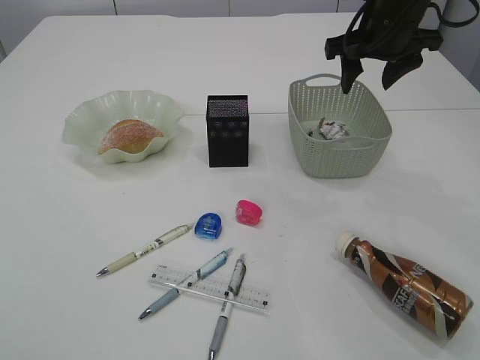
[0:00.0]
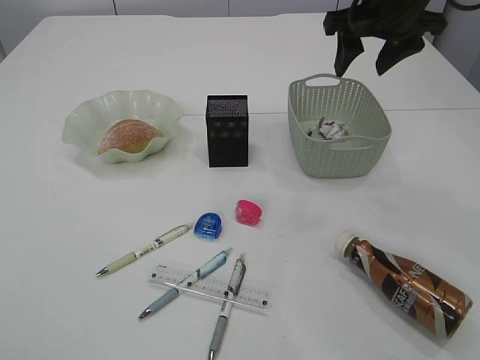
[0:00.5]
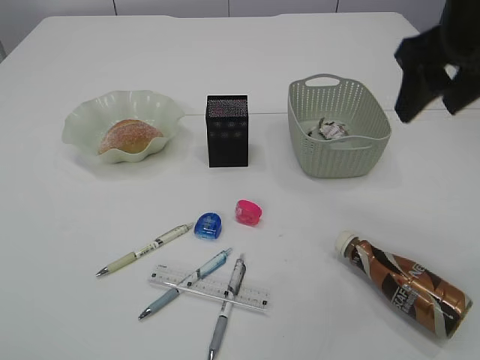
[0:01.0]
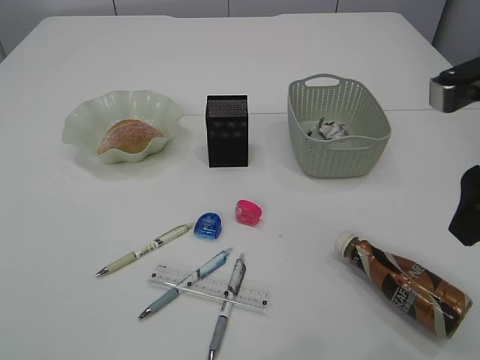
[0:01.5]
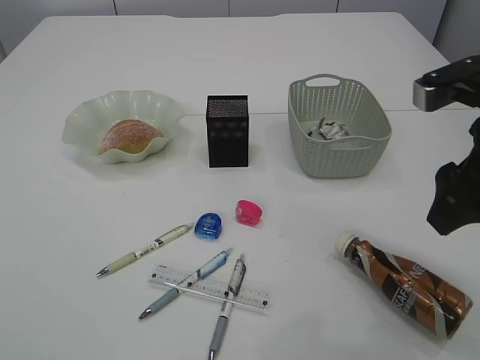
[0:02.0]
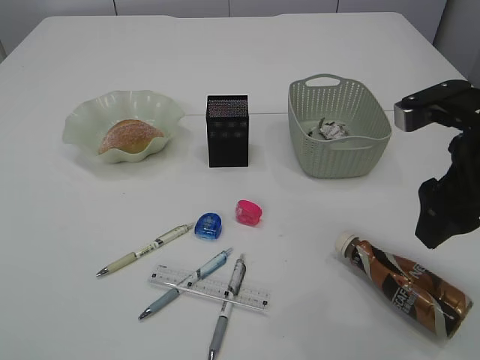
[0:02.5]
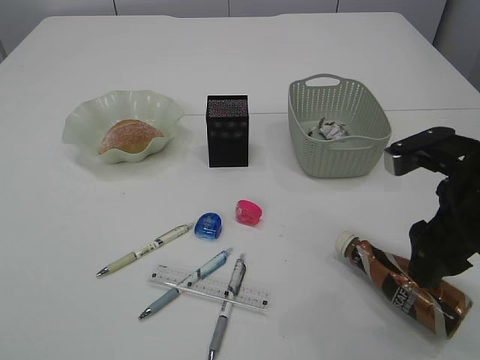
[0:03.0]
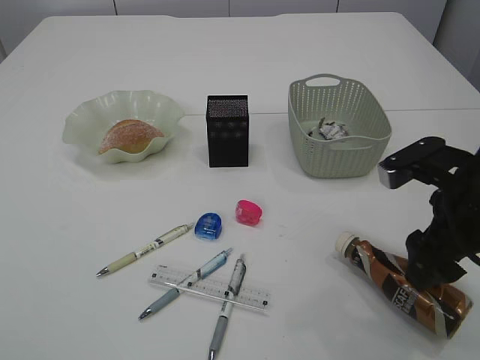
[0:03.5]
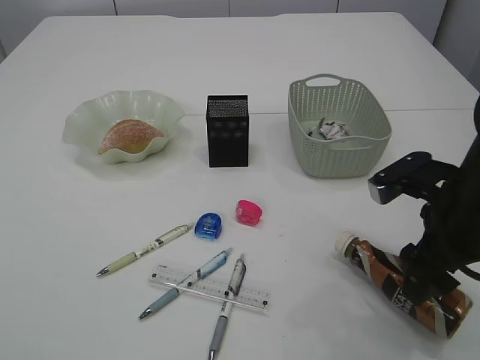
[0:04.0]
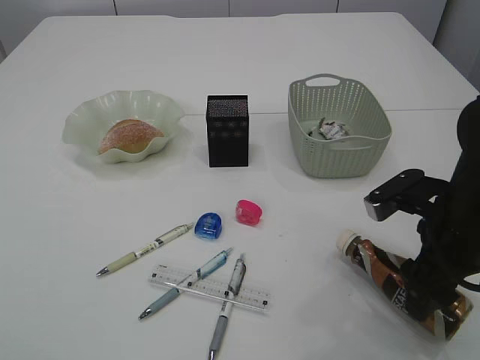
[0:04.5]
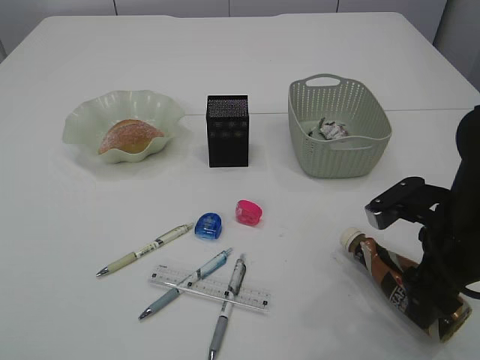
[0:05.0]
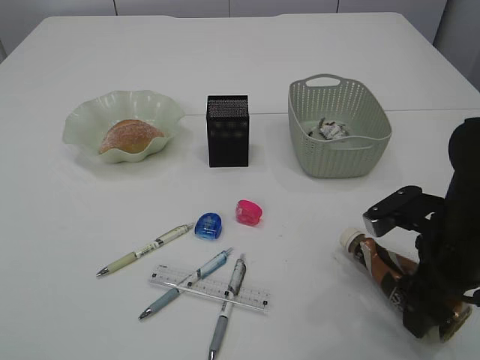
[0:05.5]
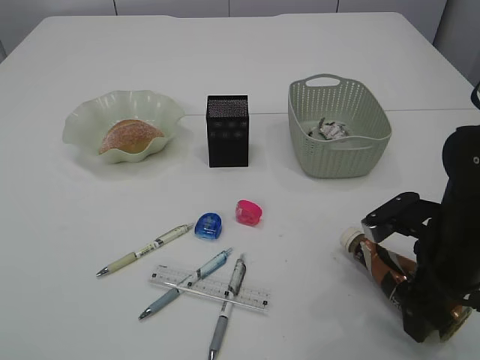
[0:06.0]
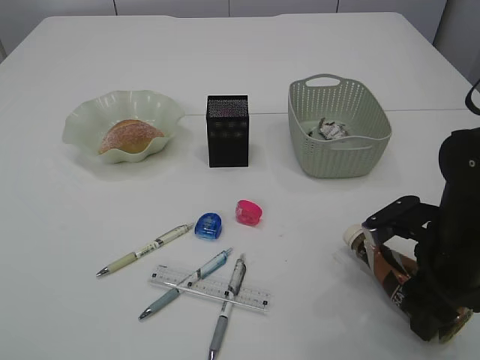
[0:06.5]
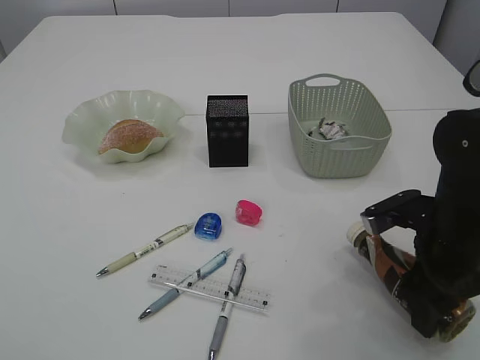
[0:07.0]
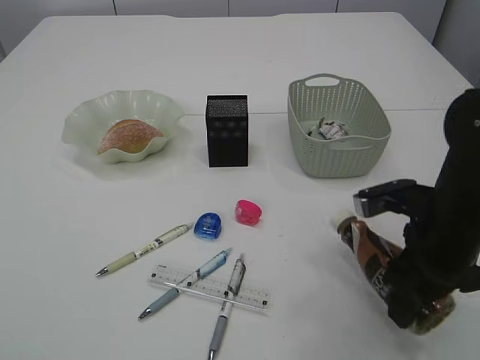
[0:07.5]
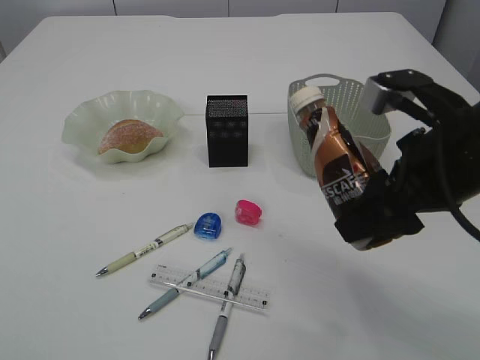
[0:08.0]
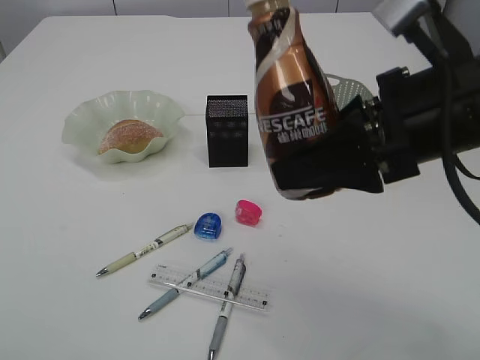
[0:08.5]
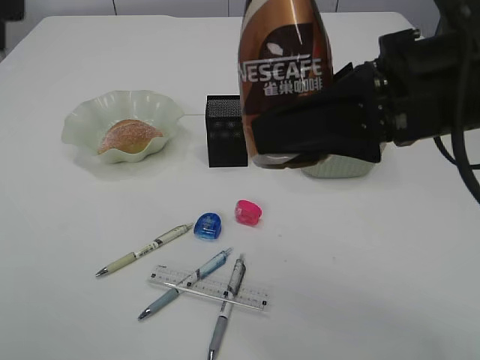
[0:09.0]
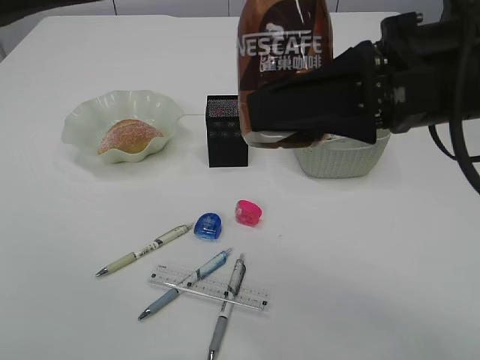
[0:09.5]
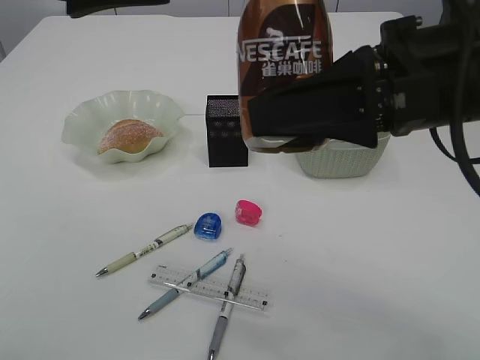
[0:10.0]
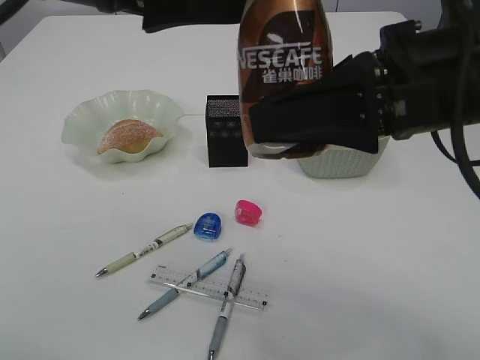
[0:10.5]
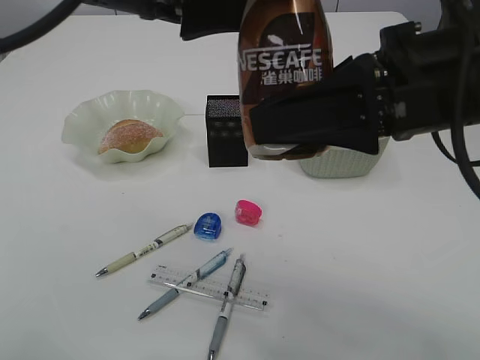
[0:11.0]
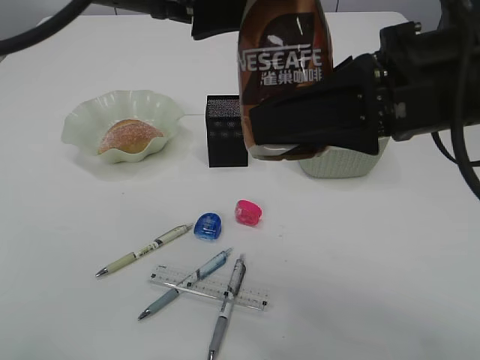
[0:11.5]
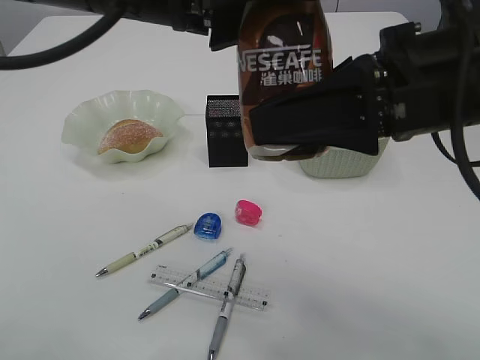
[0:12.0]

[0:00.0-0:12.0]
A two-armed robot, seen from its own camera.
Step, 0:00.0 to 0:07.5: Pick up the bottle with the right arm.
0:00.0 to 0:02.0: The right gripper shifts approximately 20 cm backward.
0:02.0 to 0:04.0: The right gripper moves downward, some 10 cm.
0:04.0 to 0:06.0: The grippers make only small movements.
0:06.0 to 0:08.0: The right gripper goes roughly 15 cm upward.
0:08.0 to 0:10.0: The right gripper travels upward by roughly 5 cm. The left gripper travels forward and to the right by about 20 cm.
0:10.0 to 0:12.0: The left gripper is displaced to the right by some 10 cm.

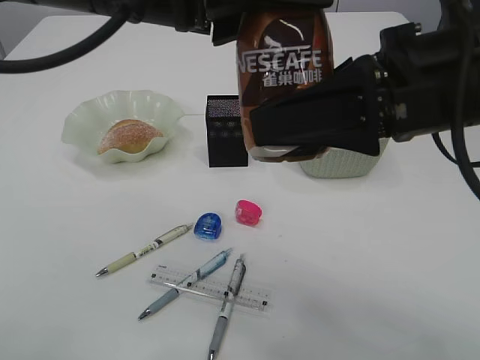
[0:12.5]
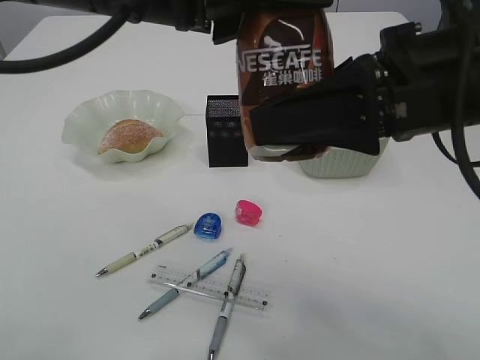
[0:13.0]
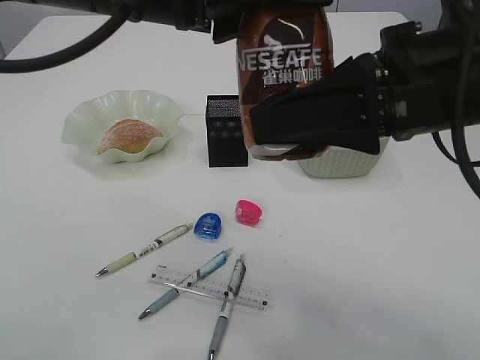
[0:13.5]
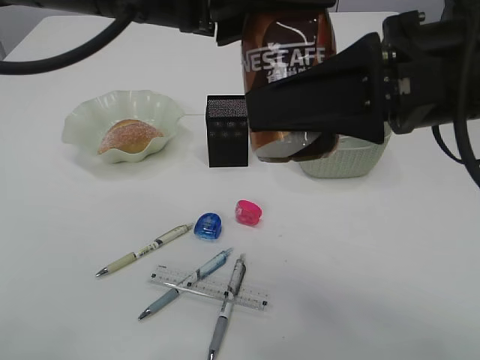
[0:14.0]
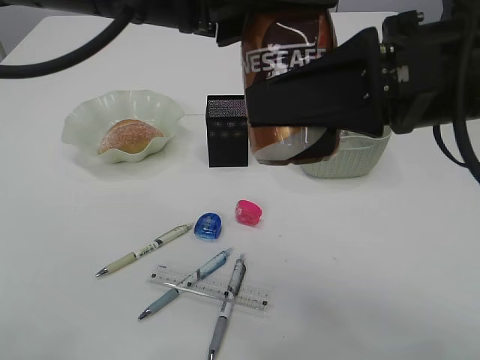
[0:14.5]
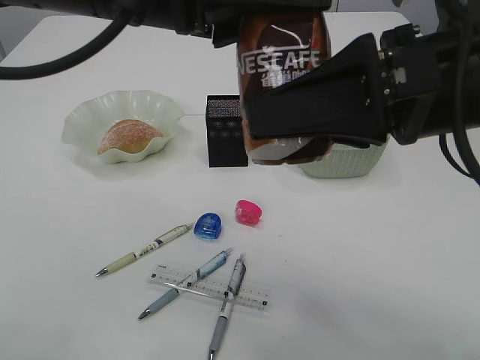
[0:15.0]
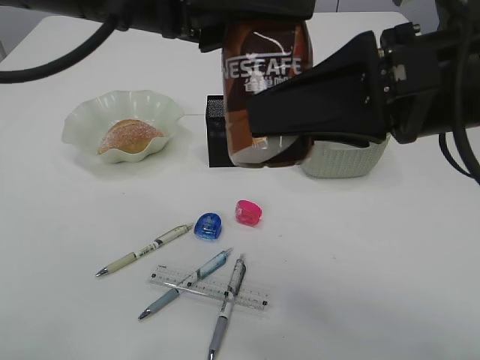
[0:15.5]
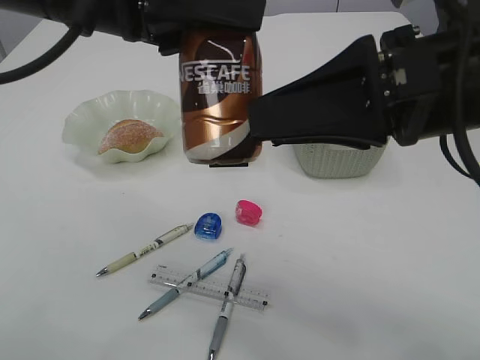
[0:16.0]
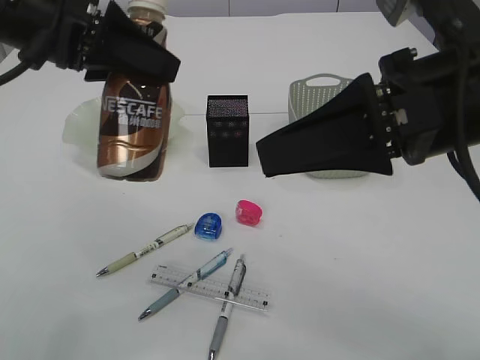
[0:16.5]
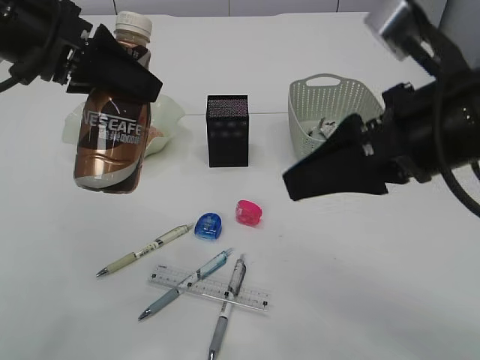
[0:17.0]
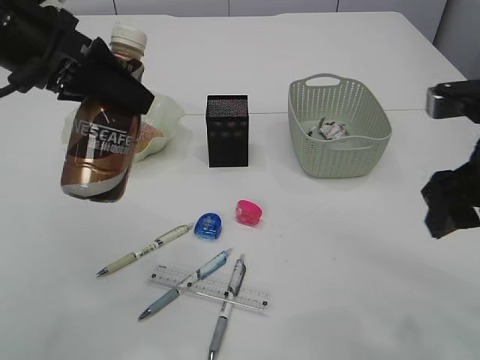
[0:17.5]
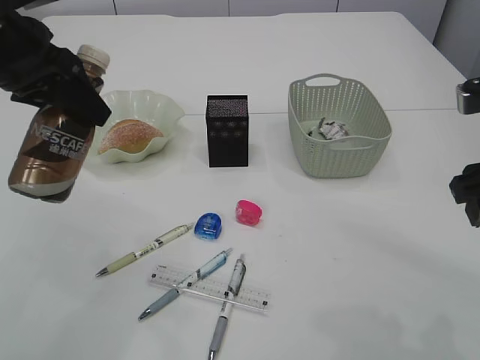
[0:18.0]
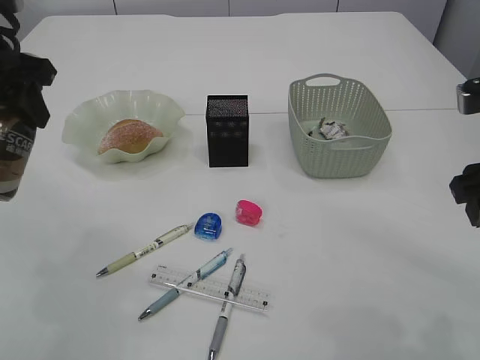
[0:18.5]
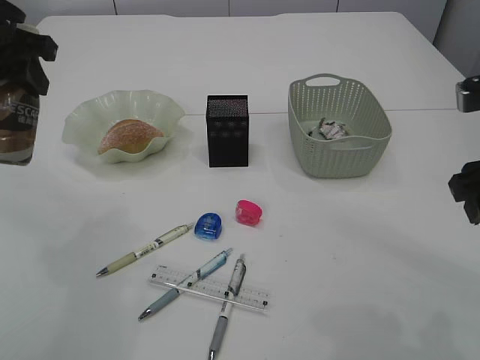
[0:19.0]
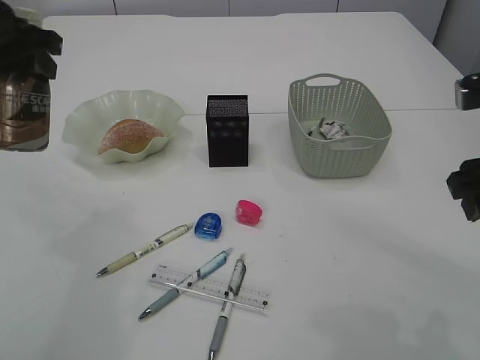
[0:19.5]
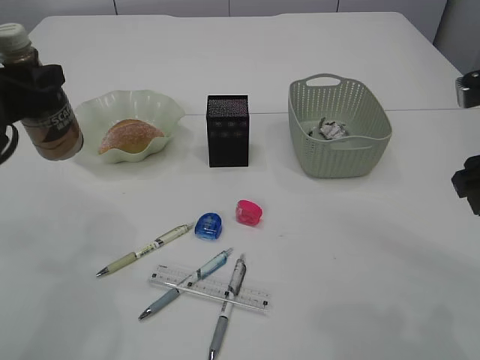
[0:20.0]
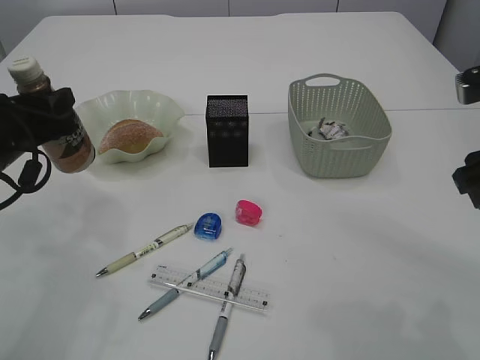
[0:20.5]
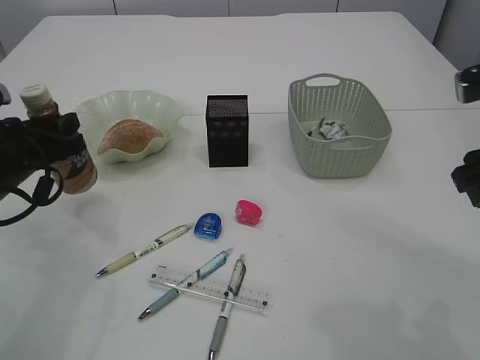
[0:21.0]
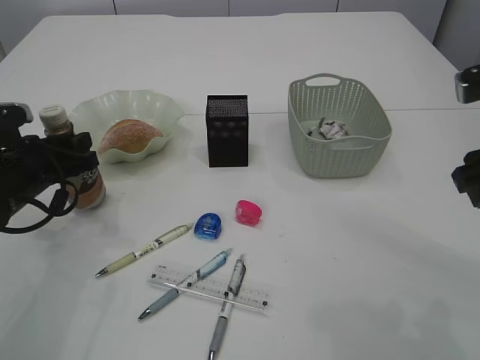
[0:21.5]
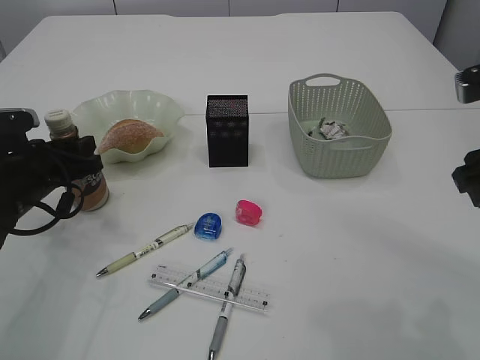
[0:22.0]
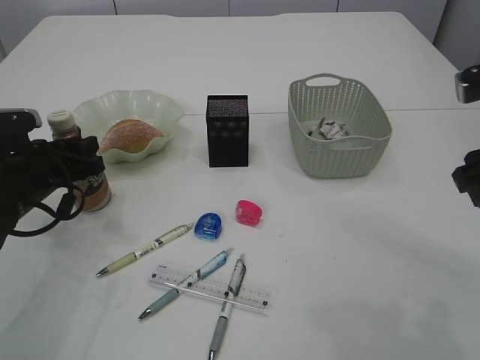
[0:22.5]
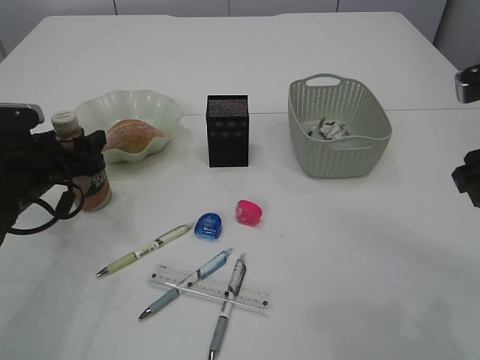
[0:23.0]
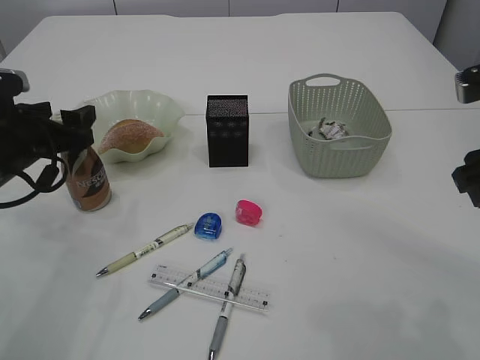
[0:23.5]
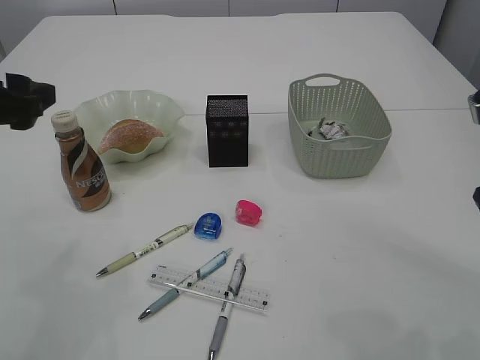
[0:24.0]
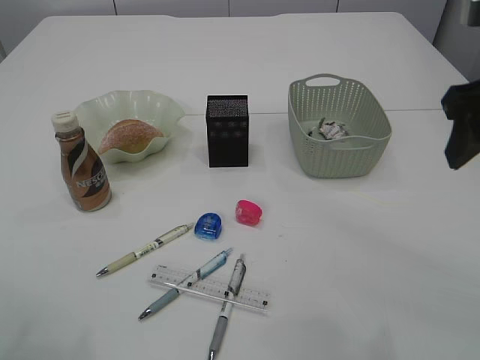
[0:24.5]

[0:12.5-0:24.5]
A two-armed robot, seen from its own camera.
Step, 0:12.5 to 0:16.0: transfer the bottle to the left arm.
Step, 0:16.5 to 0:23.5: Place the bottle.
0:12.5 to 0:14.5: The grippers move only a little.
0:14.5 to 0:16.5: The left gripper goes approximately 10 cm to the left and forward.
0:16.5 to 0:18.5: The left gripper moves to the left, some 10 cm. Meanwhile the right gripper heads to the right and downward, covering about 10 cm.
0:18.5 to 0:20.5: The left gripper moves downward, approximately 10 cm.
0:20.5 to 0:22.5: The left gripper heads downward, covering some 10 cm.
0:22.5 to 0:24.5: The right gripper travels upward by about 5 cm. Meanwhile the left gripper heads upward and backward, covering approximately 25 cm, and opens.

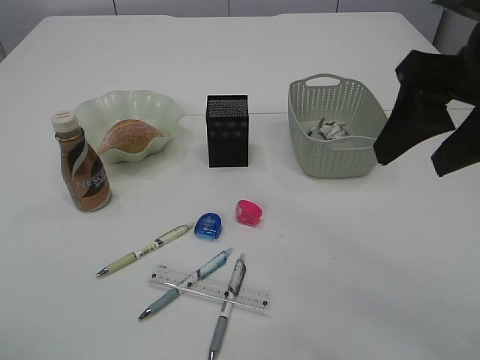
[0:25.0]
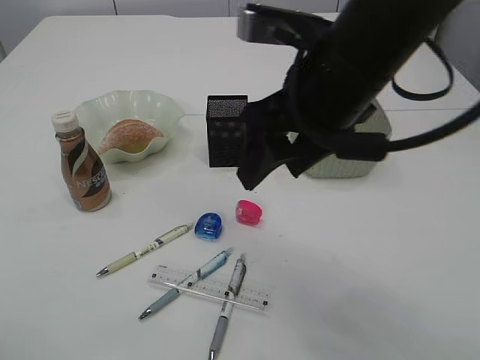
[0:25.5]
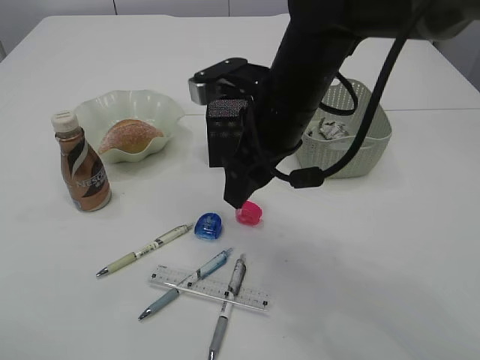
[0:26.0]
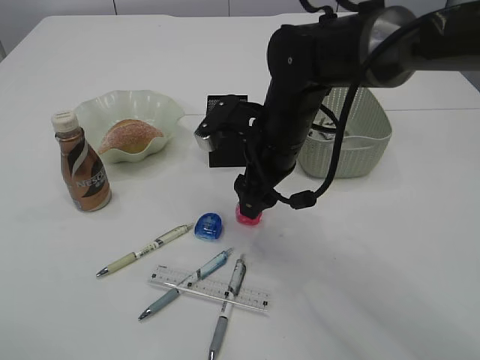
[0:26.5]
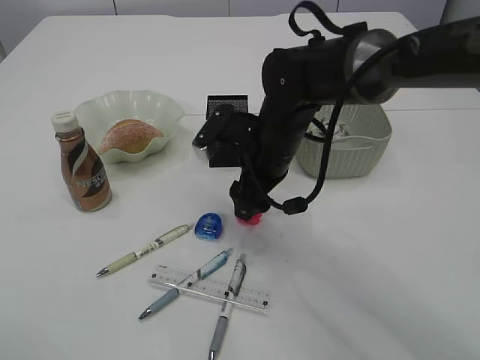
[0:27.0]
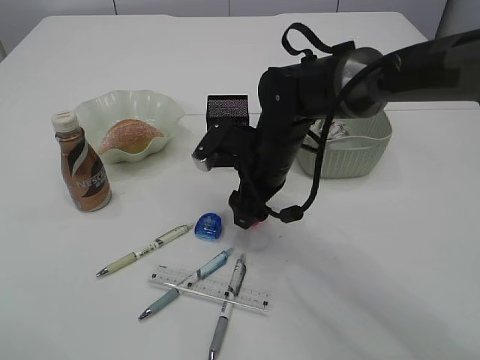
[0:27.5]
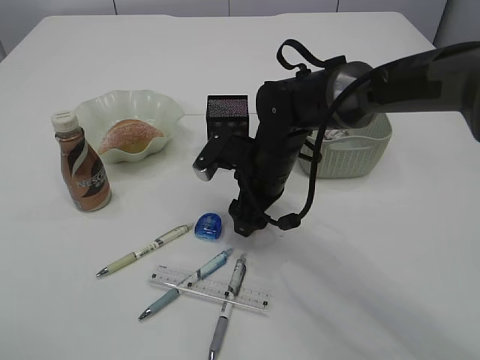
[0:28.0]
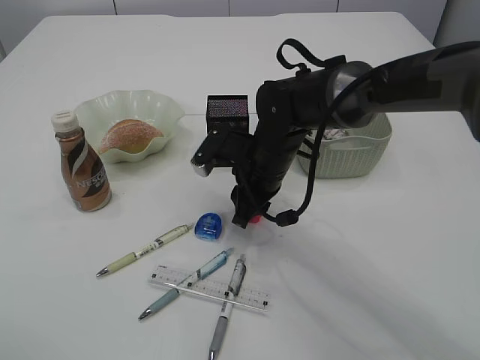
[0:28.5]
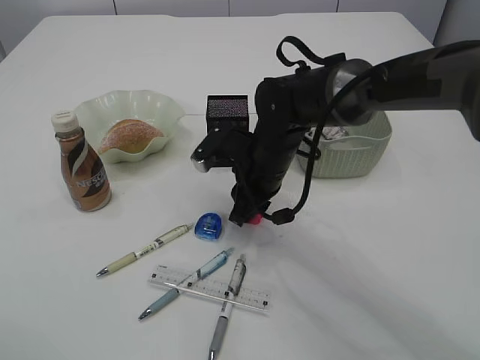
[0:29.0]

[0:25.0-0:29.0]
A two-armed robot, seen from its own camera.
0:25.0 to 0:27.0: The right gripper goes roughly 25 cm downward, forward and to the left.
0:27.0 to 0:29.0: The right gripper closes its fingers.
